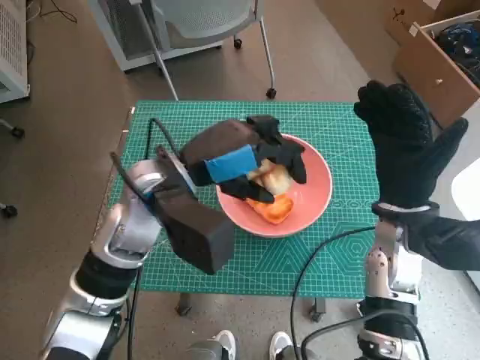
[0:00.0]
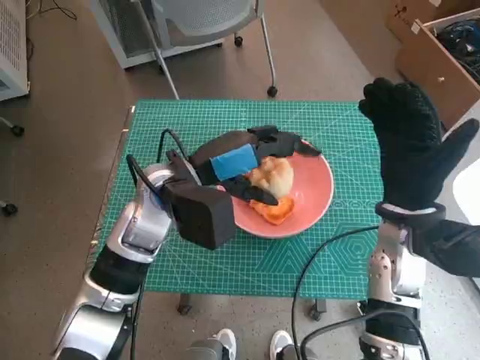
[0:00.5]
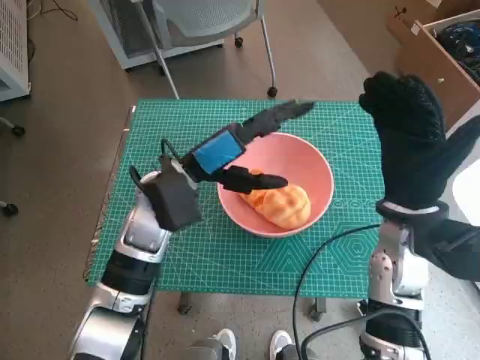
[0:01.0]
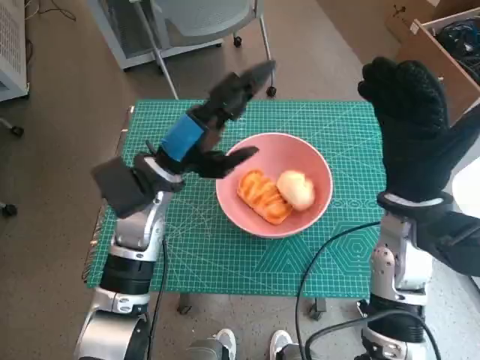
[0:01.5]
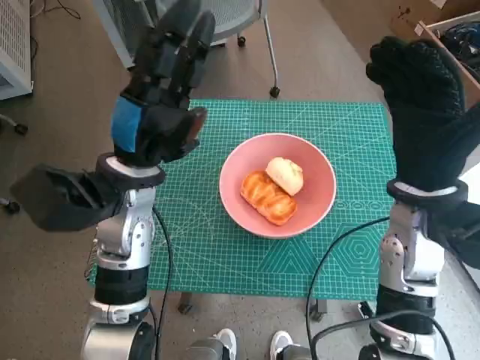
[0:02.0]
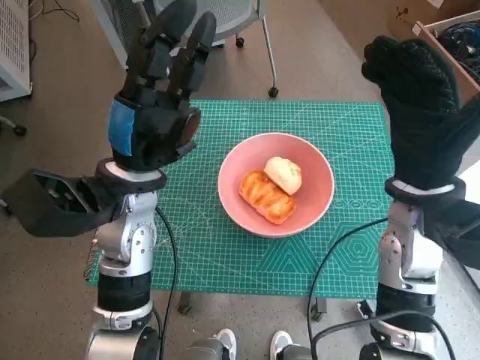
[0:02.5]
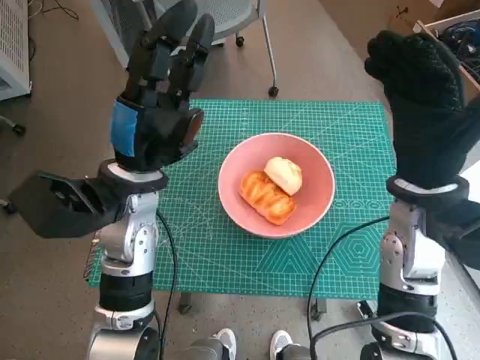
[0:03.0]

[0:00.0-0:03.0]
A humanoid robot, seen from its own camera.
0:00.0 to 0:01.5: The left hand shifts by roughly 5 cm.

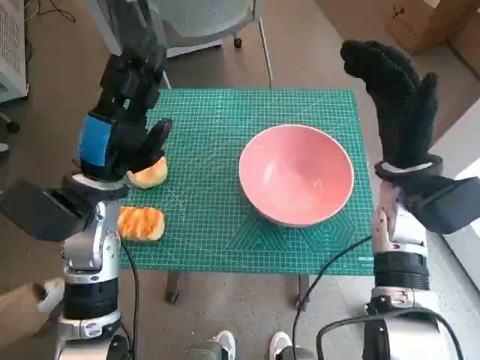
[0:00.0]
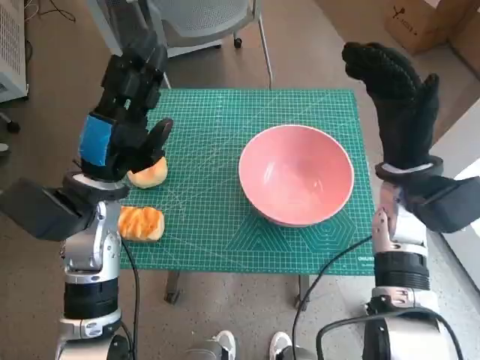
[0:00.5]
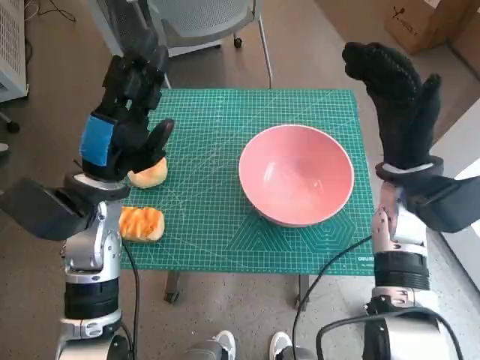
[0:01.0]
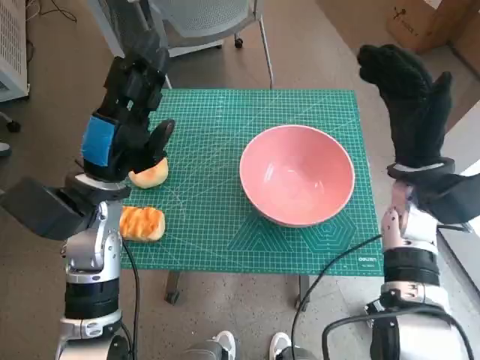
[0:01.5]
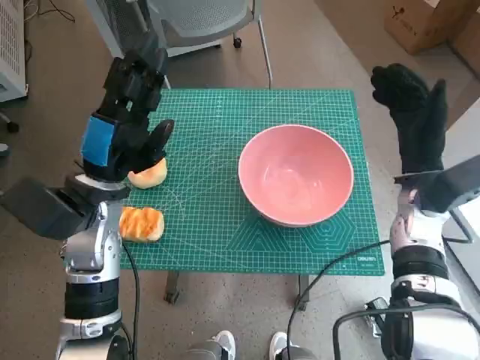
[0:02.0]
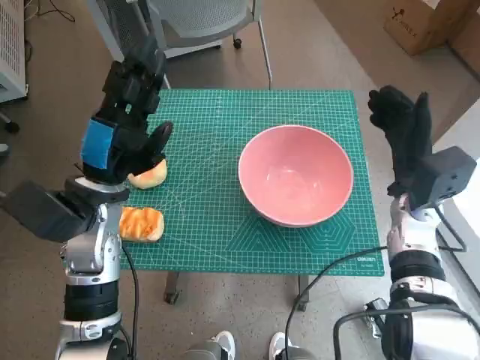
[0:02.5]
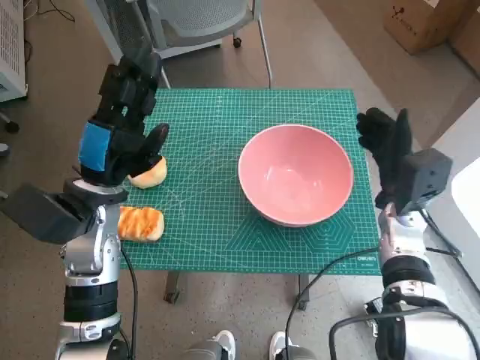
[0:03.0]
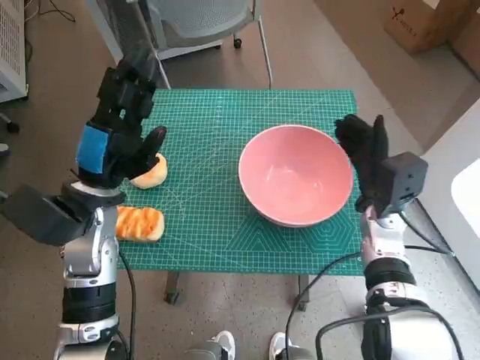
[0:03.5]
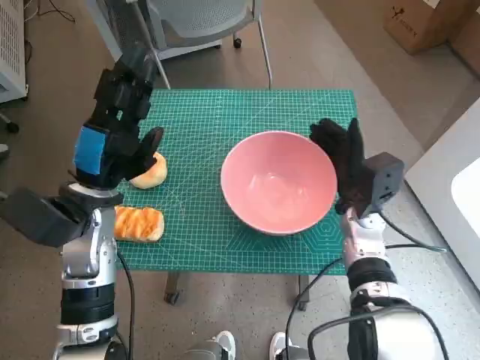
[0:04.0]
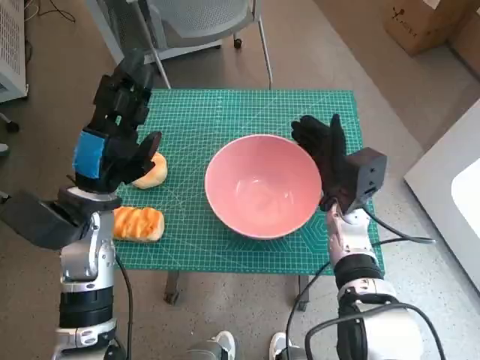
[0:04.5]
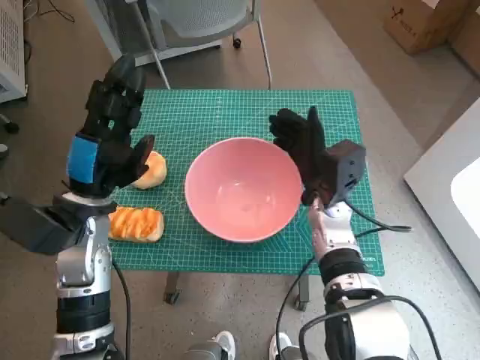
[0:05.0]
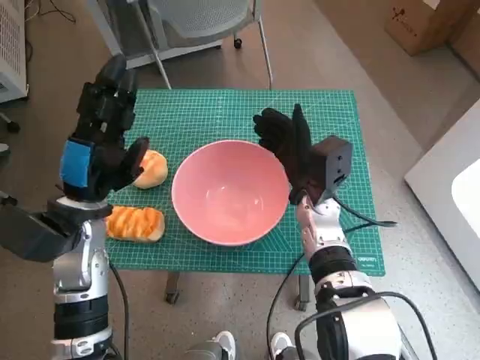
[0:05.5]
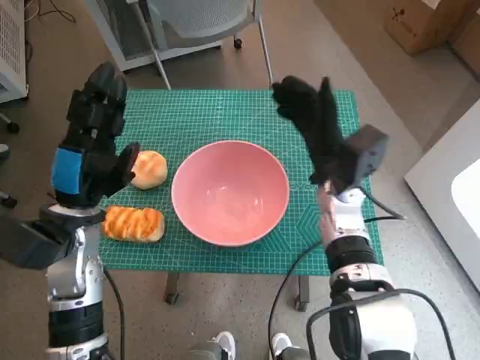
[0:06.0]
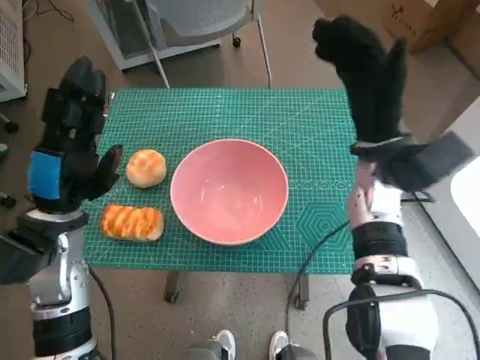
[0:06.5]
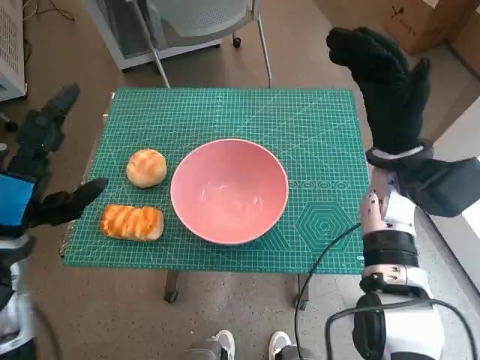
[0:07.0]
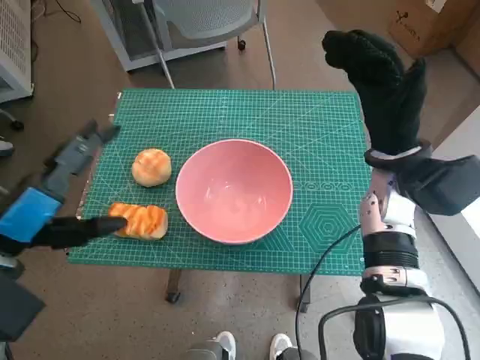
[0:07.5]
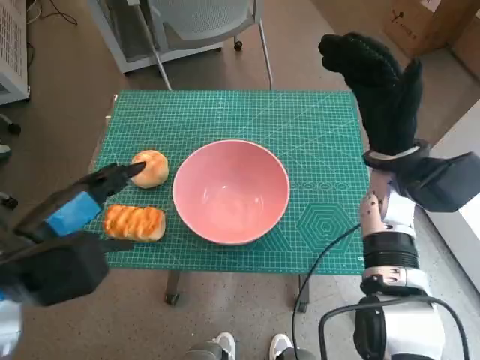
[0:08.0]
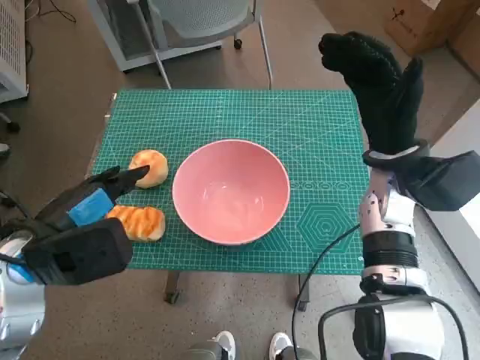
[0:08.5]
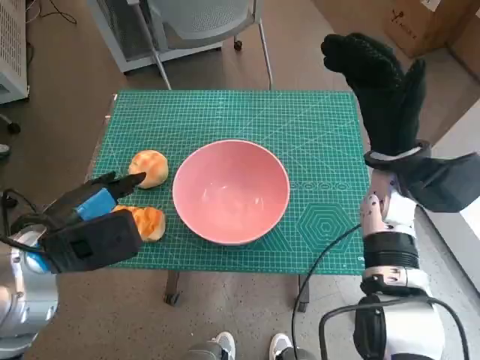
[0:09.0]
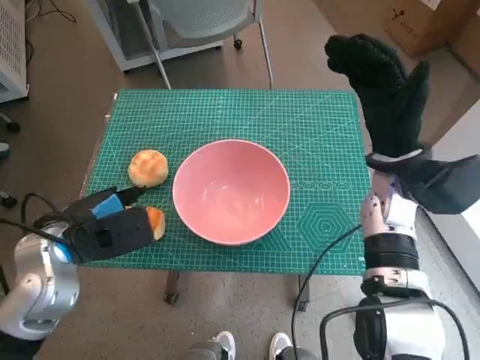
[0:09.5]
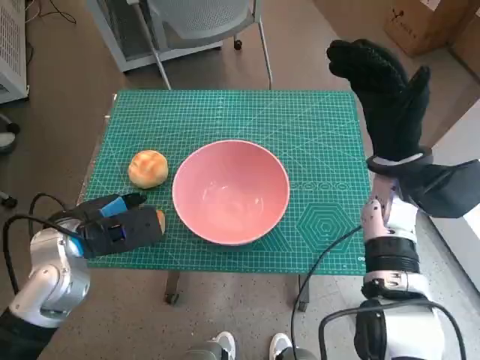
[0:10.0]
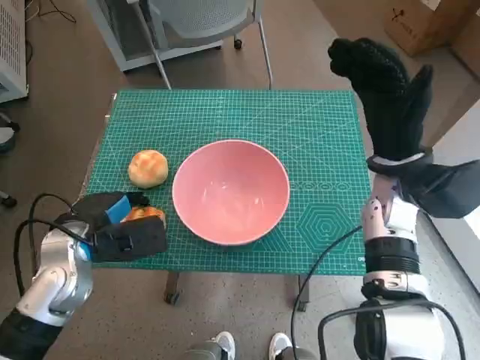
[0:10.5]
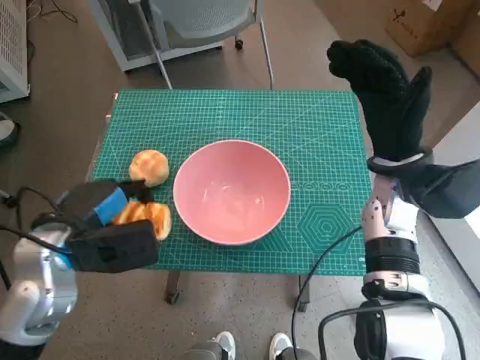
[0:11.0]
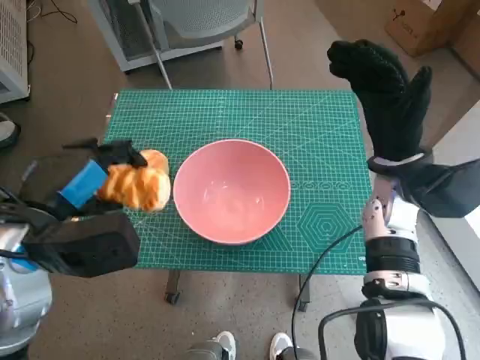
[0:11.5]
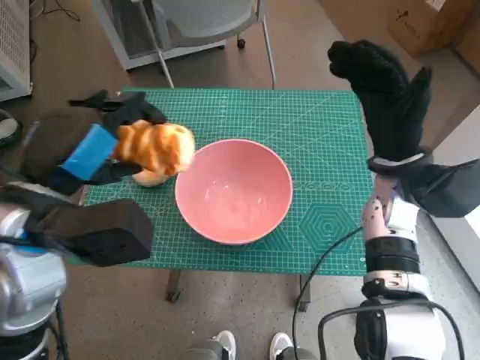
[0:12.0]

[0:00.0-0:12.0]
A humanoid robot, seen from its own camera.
Step, 0:00.0 to 0:05.5: Move the pink bowl to the center of table with right hand.
Step, 0:06.0 to 0:10.0: Grasp the long bread with left hand.
0:02.0 to 0:04.0: The right hand is displaced downward and to the left by roughly 10 cm.
0:04.0 to 0:06.0: The right hand is displaced to the left by approximately 5 cm.
0:06.0 to 0:08.0: The left hand moves backward and upward, approximately 10 cm. The right hand travels to the right and upward by roughly 10 cm.
0:08.0 to 0:10.0: The left hand shifts approximately 10 cm downward and forward.
0:10.0 to 0:12.0: The left hand is displaced upward by about 10 cm.

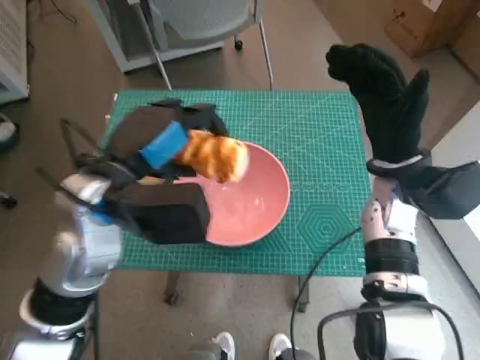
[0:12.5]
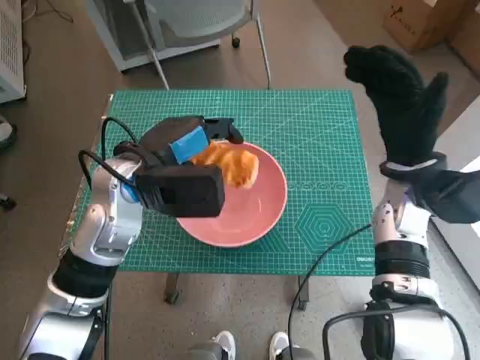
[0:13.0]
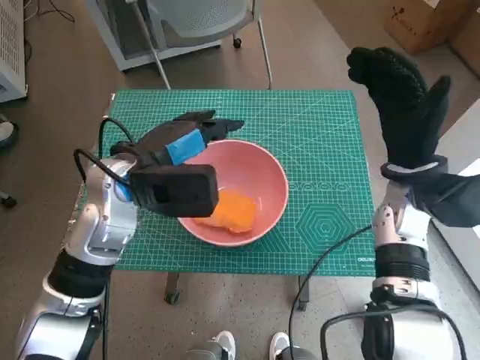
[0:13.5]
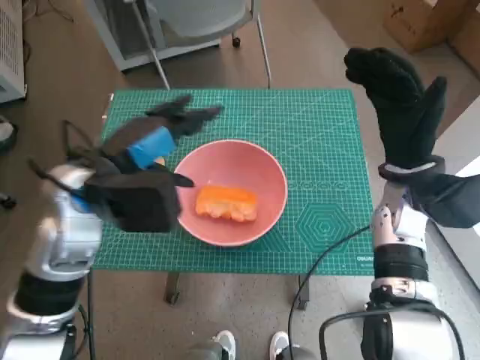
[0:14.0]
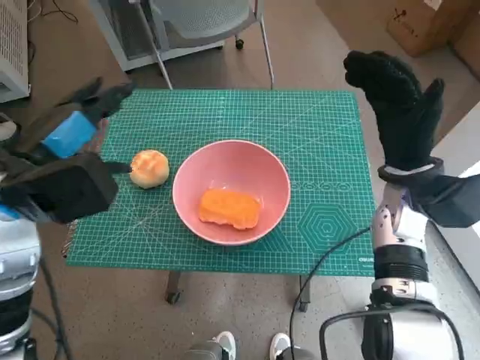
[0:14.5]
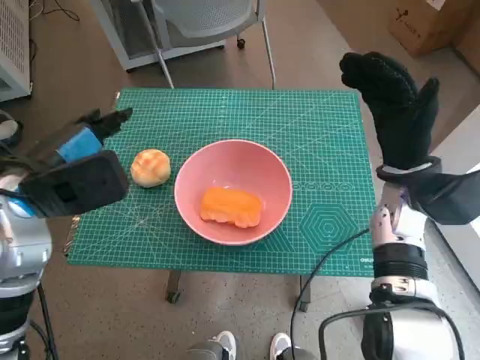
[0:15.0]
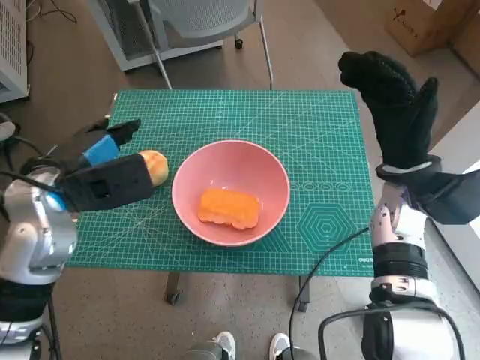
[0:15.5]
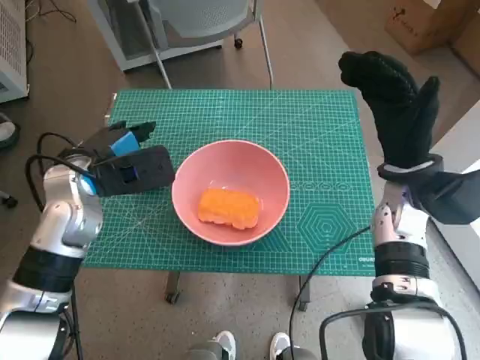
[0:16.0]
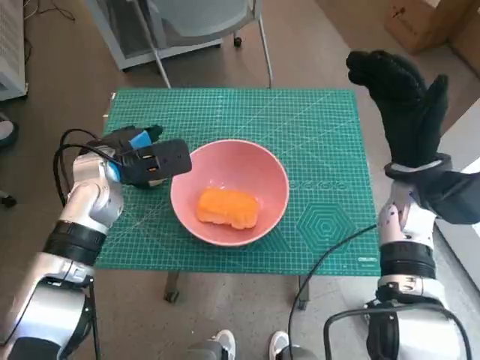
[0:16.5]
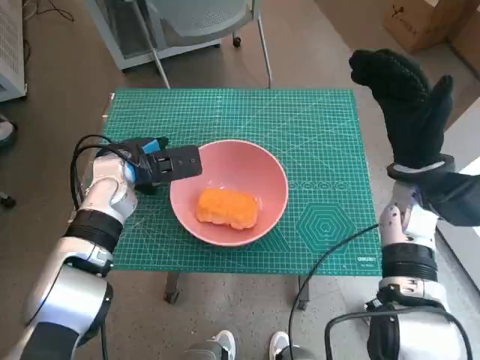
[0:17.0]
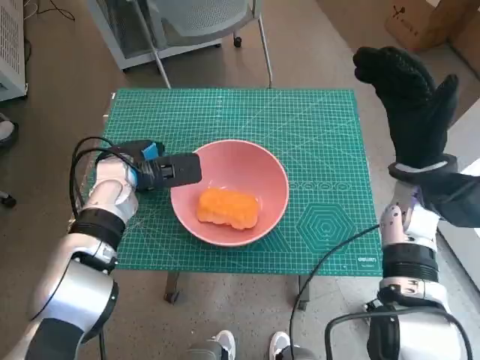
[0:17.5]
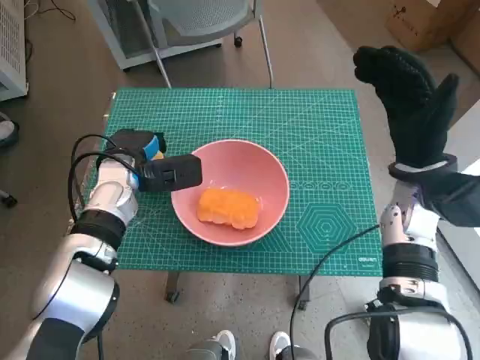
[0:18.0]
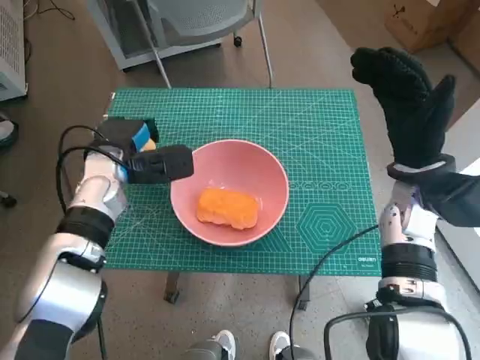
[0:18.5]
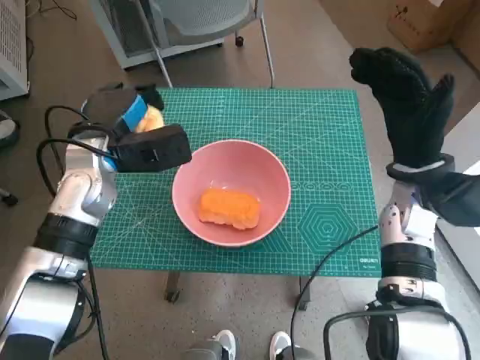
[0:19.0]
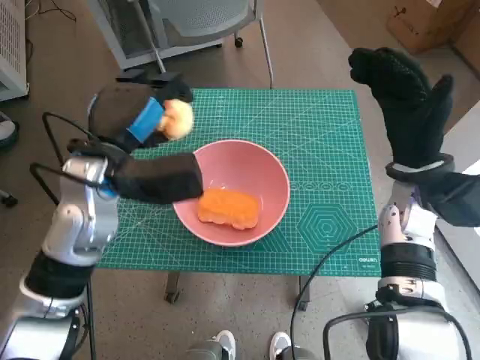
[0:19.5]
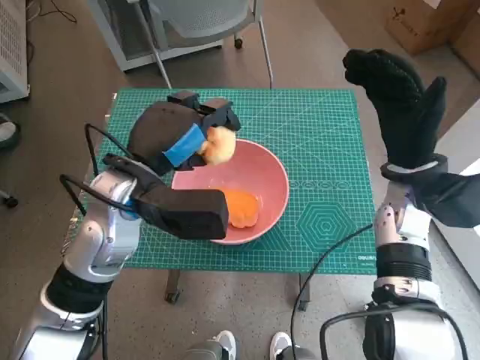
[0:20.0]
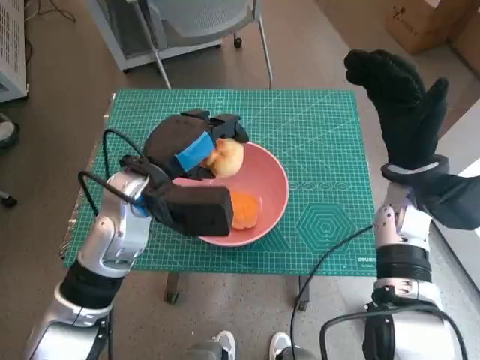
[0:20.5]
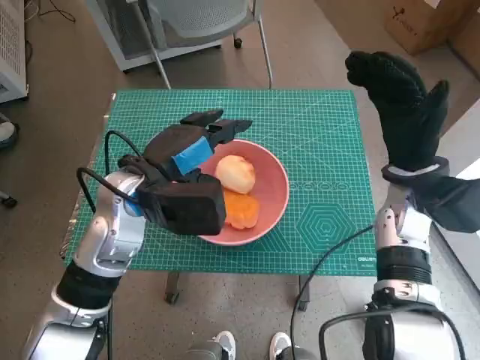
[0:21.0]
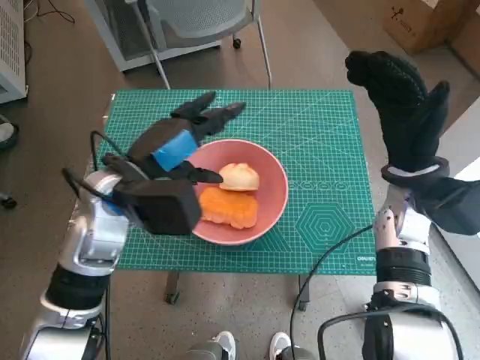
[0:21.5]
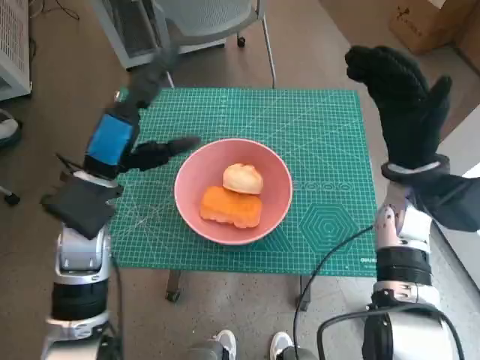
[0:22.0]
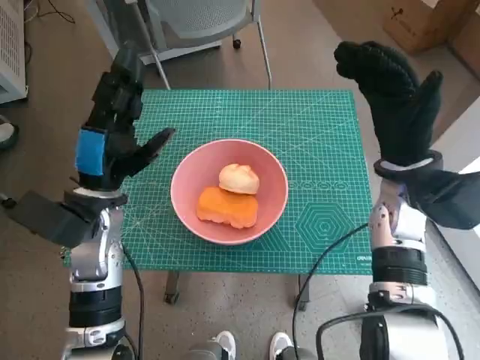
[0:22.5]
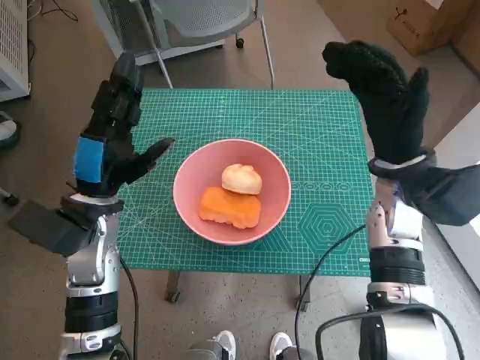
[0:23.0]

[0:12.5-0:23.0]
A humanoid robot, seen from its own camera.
Step, 0:13.5 to 0:17.0: Grasp the round bread with left hand.
Step, 0:17.5 to 0:20.5: Place the round bread in pink bowl with left hand.
0:12.5 to 0:14.5: The left hand travels to the left by approximately 10 cm.
0:14.5 to 0:16.5: The left hand goes approximately 10 cm forward and downward.
0:19.0 to 0:21.0: The left hand shifts some 10 cm to the right and backward.
0:21.0 to 0:23.0: The left hand travels to the left by about 5 cm.
